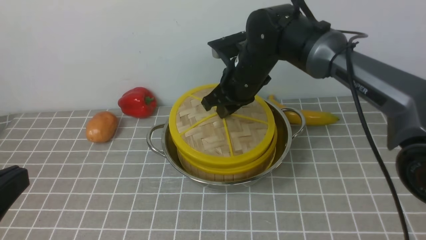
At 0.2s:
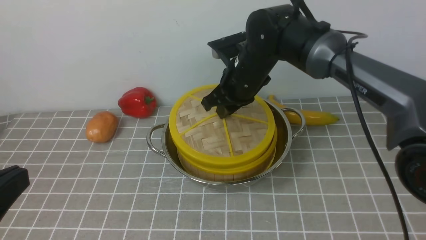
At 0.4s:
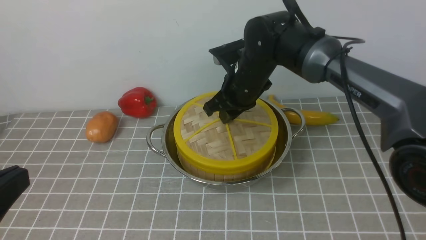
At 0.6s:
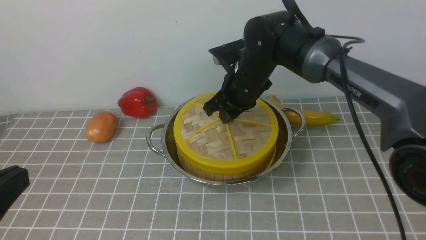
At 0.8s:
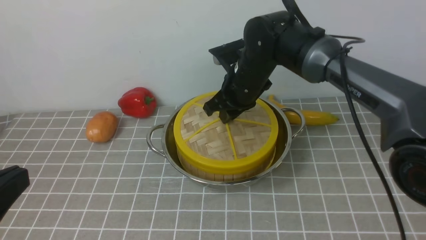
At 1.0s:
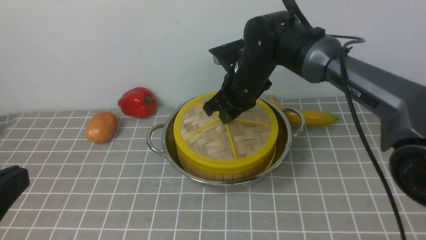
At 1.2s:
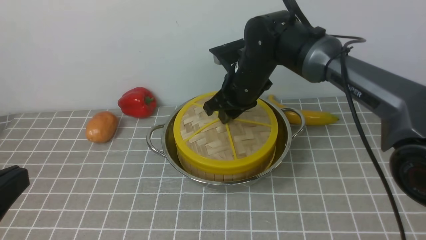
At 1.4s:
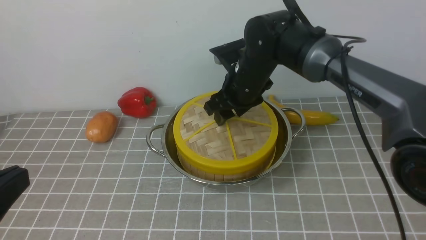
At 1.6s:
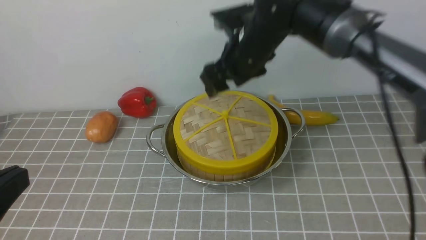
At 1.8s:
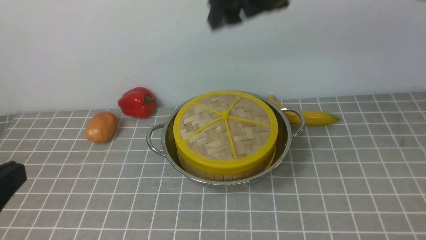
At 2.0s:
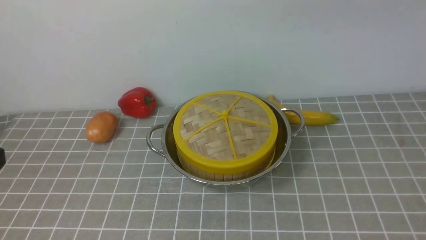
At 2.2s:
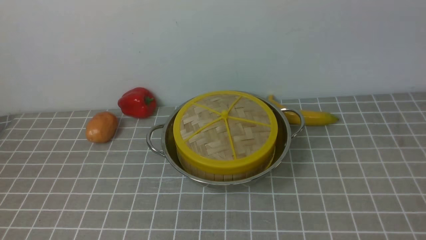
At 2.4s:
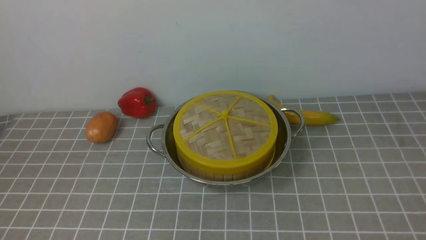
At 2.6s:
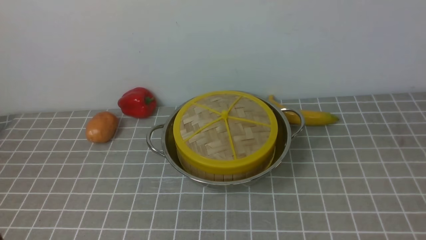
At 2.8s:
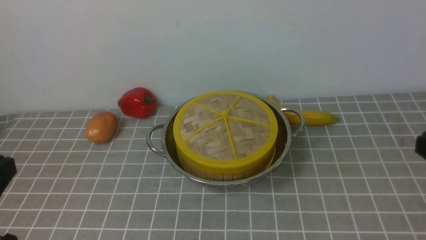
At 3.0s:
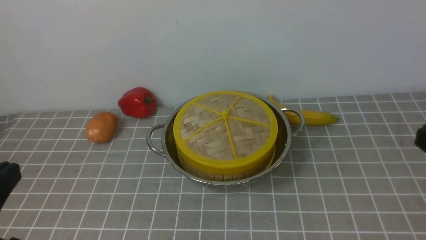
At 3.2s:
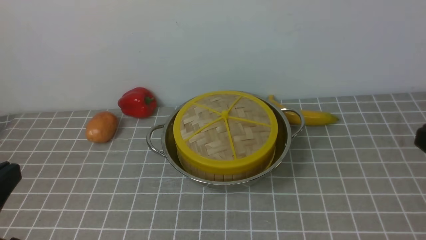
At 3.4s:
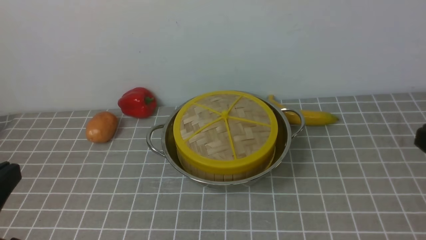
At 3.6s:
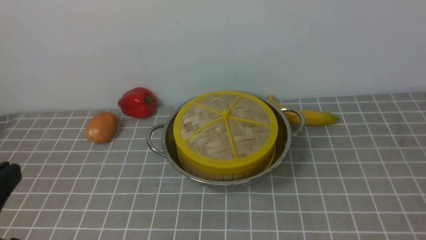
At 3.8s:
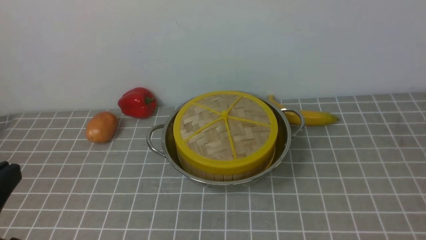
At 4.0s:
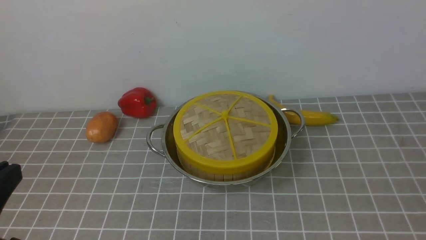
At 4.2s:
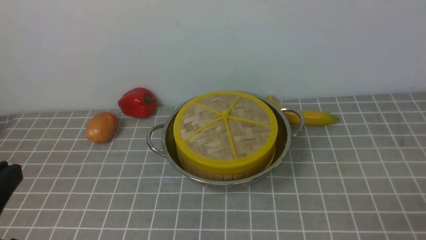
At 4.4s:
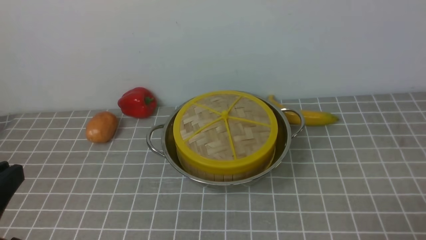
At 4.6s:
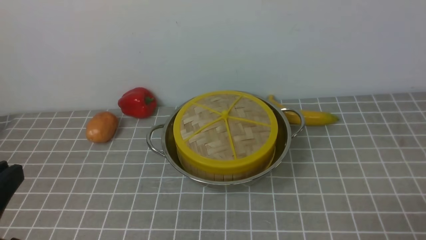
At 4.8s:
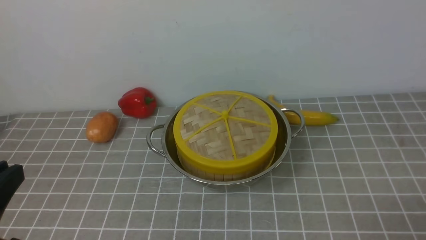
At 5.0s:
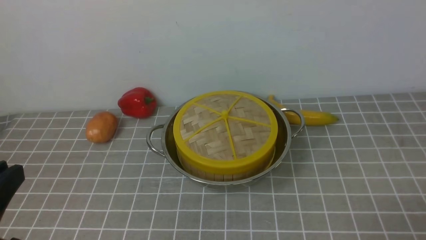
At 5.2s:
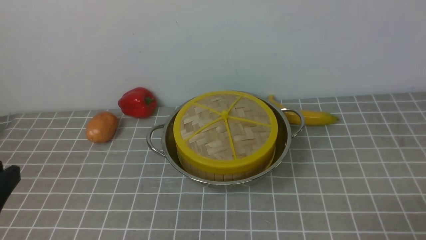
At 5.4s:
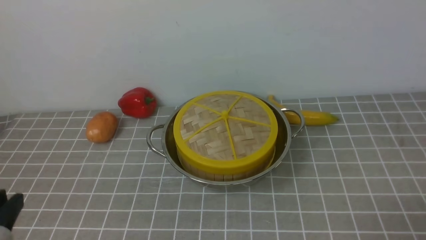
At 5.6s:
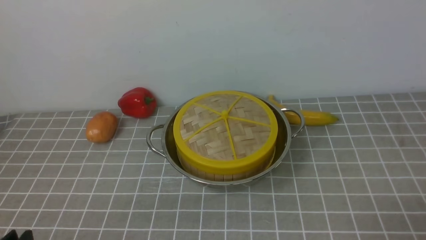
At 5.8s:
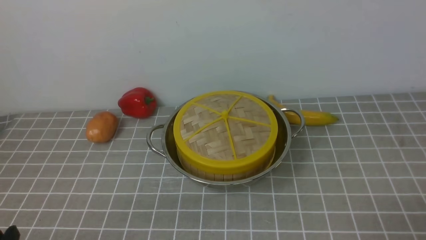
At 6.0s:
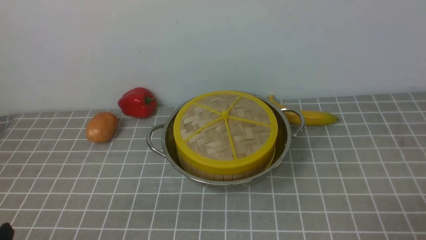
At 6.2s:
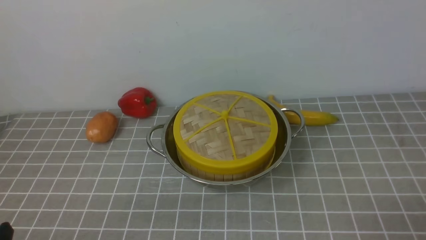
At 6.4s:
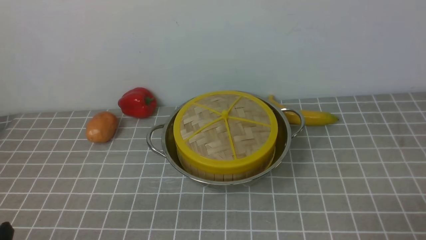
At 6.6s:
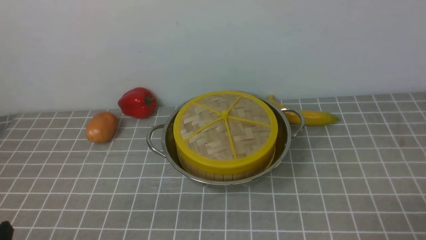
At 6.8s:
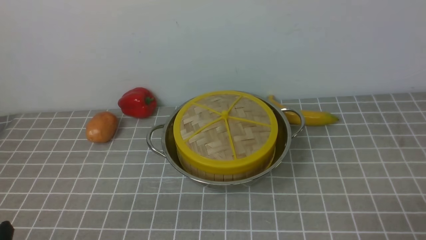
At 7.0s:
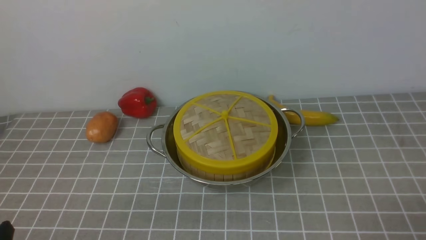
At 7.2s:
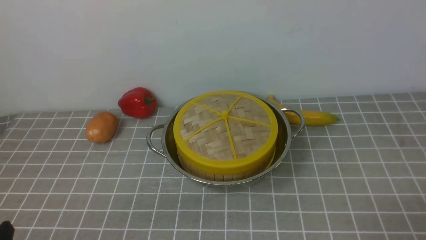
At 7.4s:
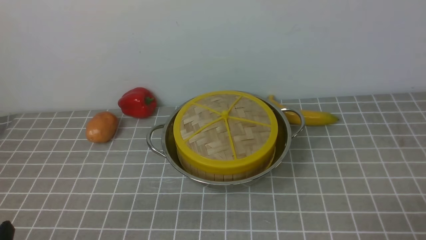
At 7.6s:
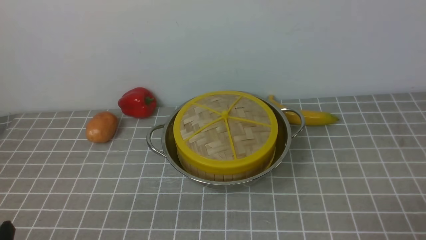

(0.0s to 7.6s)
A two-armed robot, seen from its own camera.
Task of the whole recording: place the steamer in the pot on the grey tablecloth, and put the lid on the steamer.
0.0s - 1.6s: The right gripper is displaced upward by approximately 10 cm, and opens up.
1.6s - 3.0s: The right gripper heads backward and to the right, covering some 35 cm, and closes.
4.6s - 6.0s: The left gripper shifts some 10 cm downward.
6.0s - 7.6s: The two grippers keep their place.
